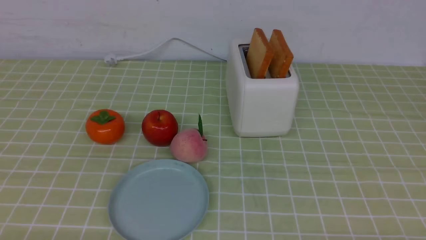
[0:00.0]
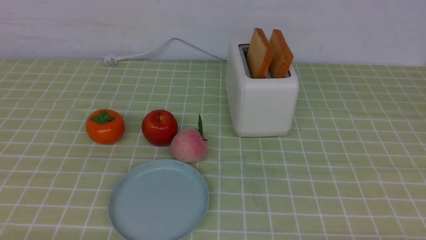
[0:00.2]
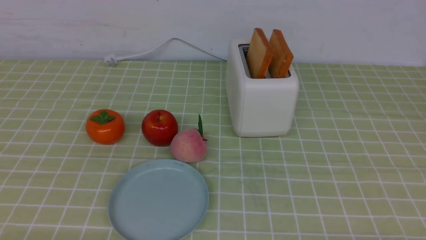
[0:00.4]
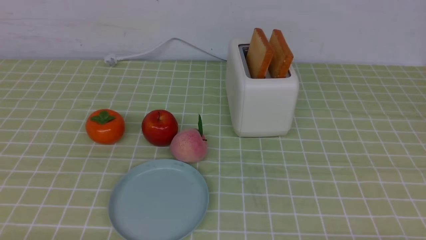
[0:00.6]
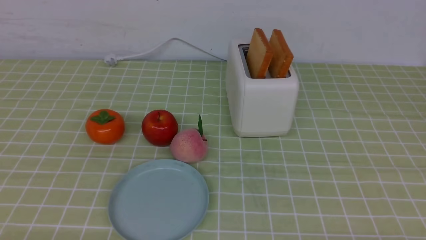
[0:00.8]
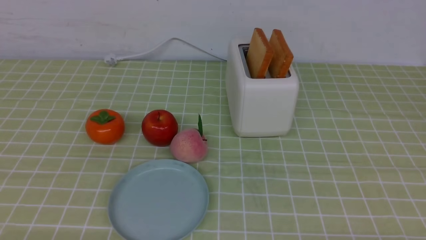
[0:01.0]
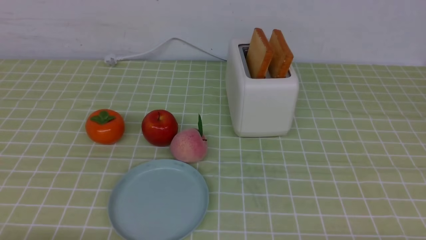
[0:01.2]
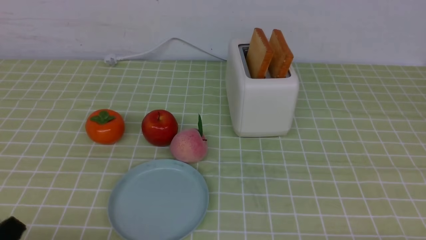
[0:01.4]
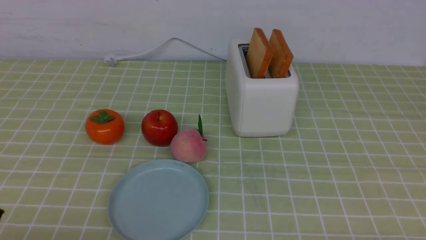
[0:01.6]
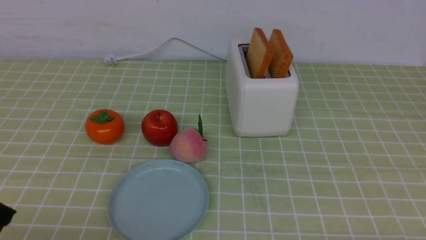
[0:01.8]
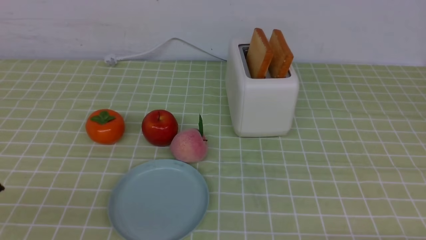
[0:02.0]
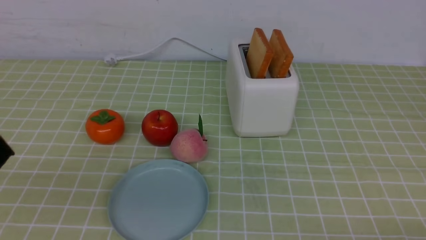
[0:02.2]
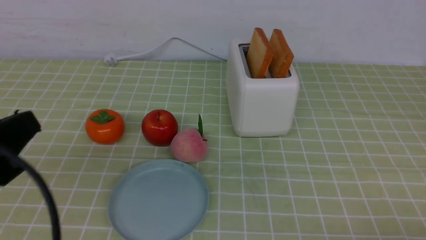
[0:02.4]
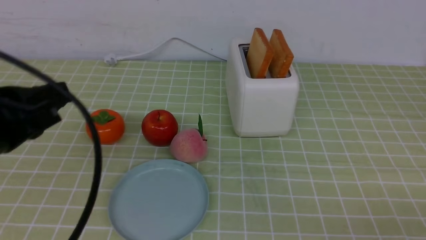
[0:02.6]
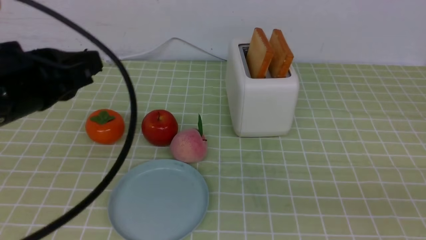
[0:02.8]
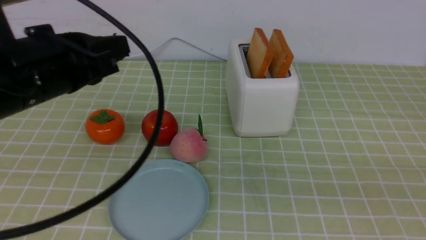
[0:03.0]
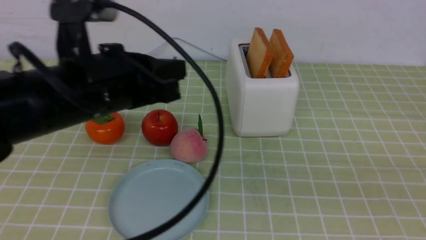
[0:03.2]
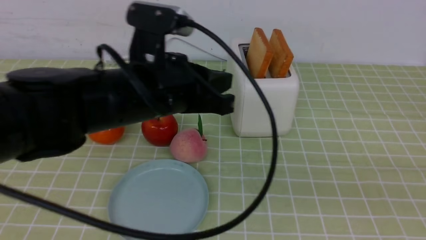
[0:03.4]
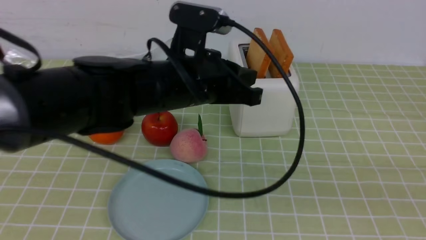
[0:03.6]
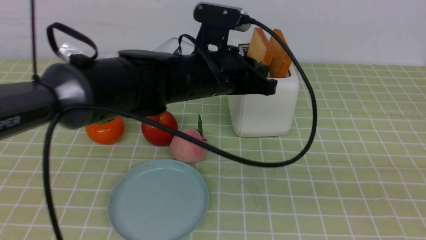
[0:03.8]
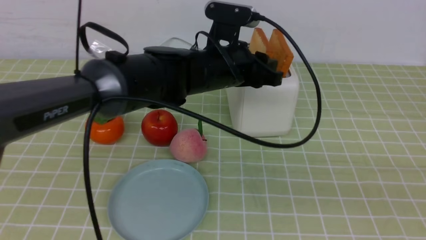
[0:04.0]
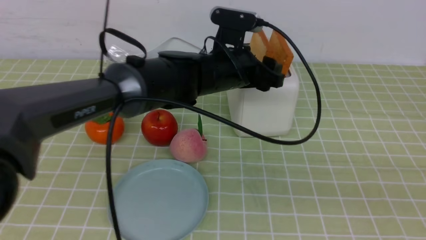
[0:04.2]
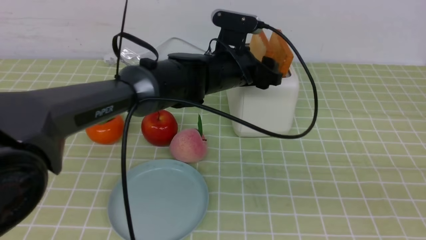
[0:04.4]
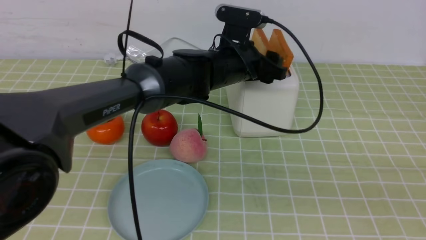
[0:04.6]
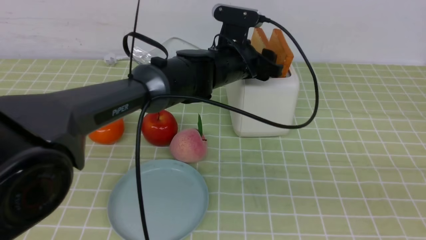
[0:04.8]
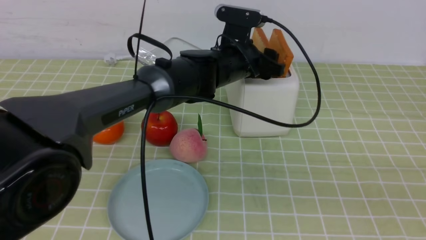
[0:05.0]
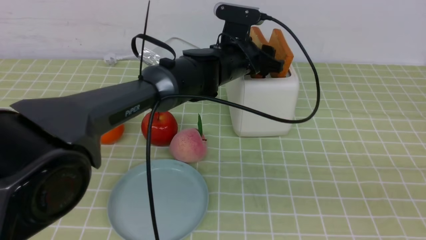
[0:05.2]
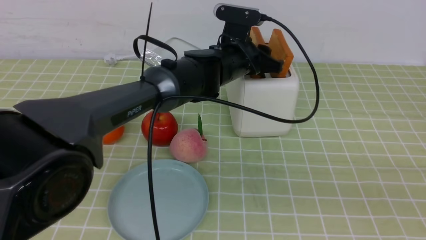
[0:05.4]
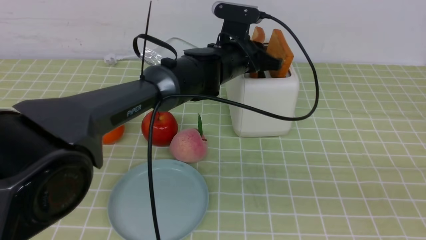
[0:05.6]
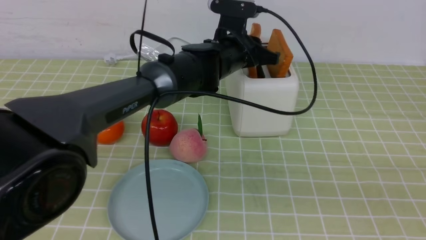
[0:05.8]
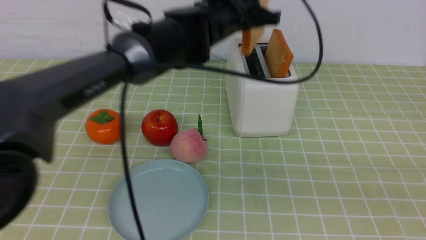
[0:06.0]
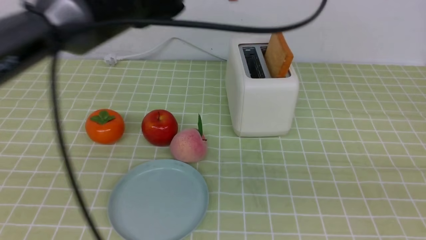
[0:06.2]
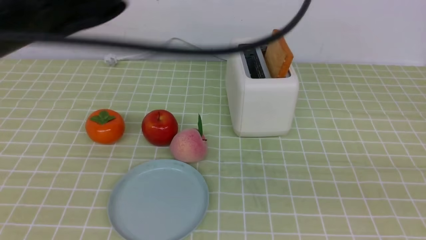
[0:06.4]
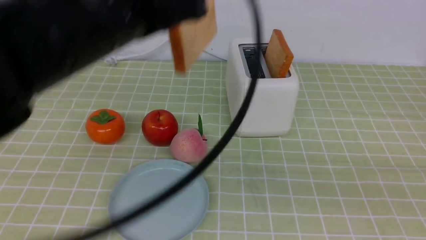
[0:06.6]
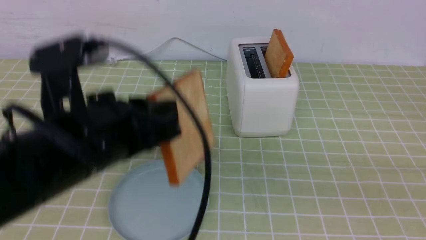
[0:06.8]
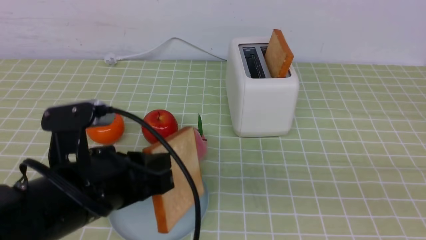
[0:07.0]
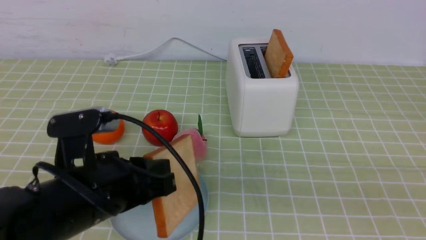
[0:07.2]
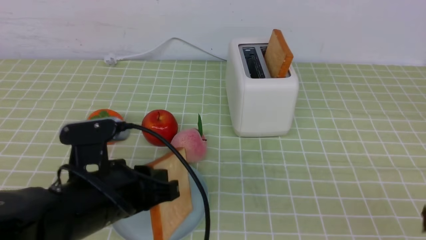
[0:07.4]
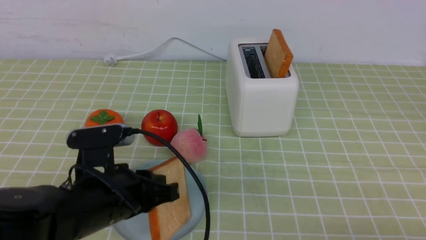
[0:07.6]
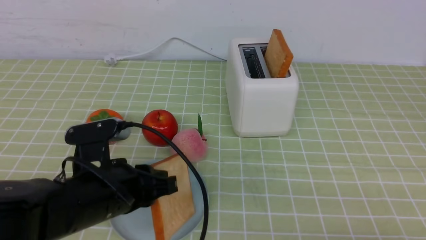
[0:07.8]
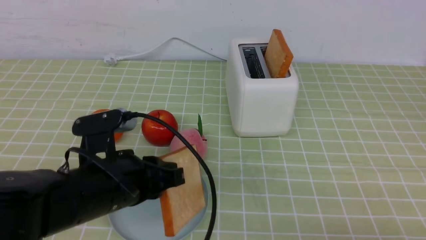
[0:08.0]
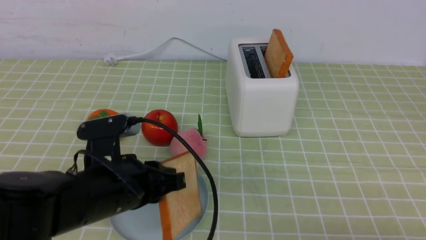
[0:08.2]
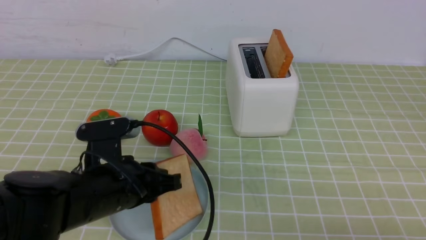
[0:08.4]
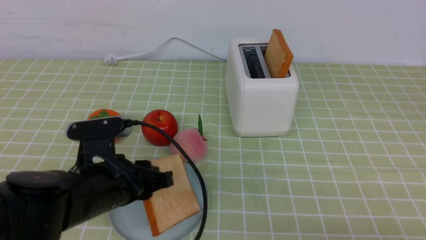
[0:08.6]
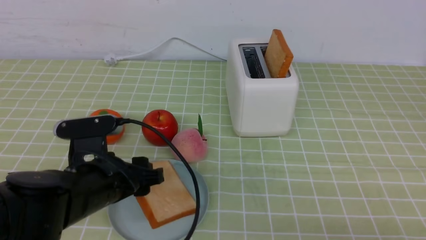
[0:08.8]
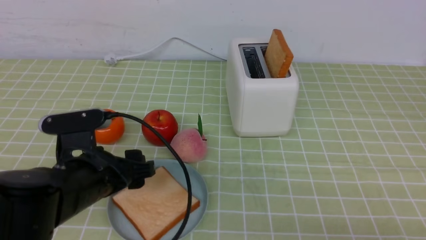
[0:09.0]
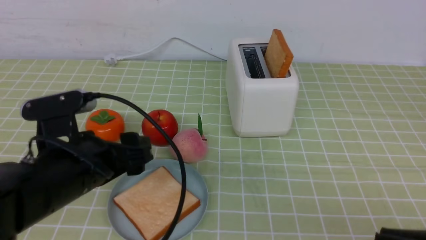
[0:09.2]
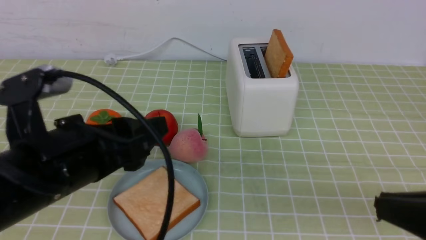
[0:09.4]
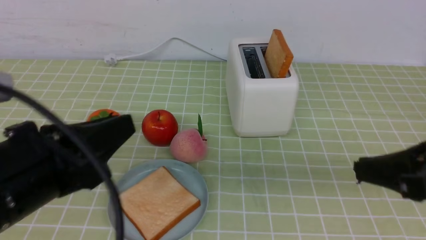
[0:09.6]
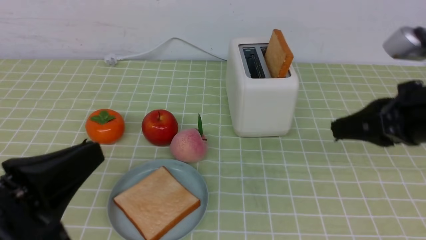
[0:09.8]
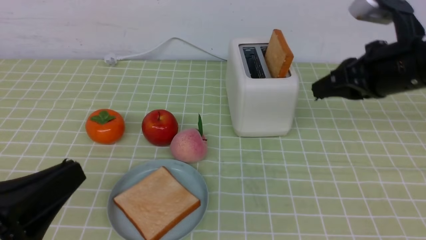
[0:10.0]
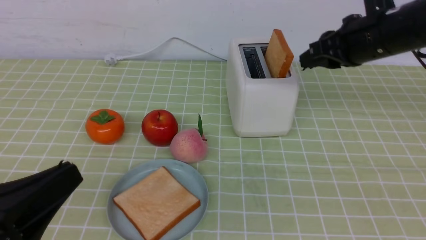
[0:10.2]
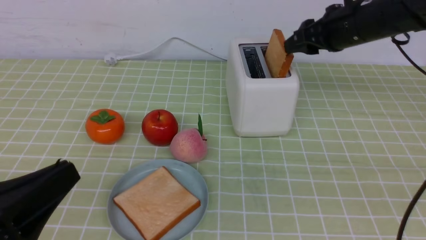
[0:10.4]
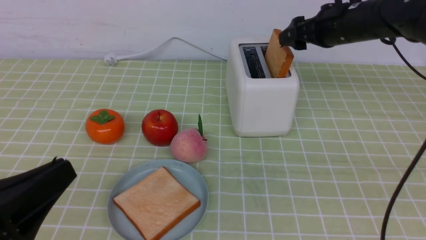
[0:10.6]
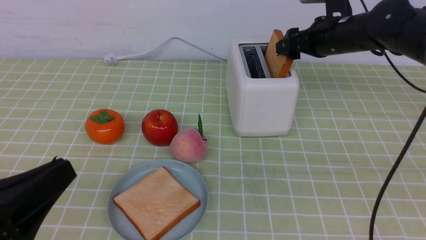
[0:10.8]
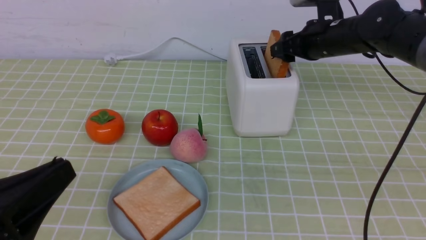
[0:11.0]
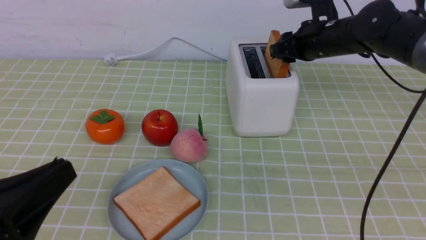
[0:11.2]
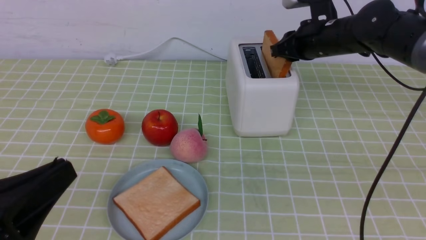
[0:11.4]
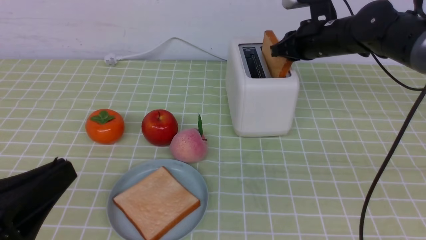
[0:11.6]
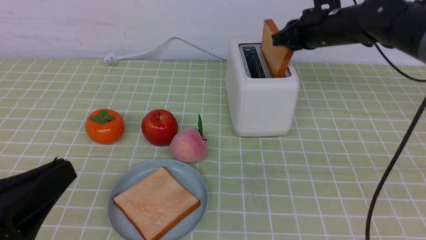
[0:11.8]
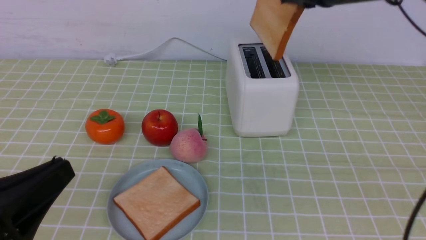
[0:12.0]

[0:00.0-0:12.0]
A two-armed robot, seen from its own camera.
Task of the whole recording: take toasted bread from bread machine on green coffee tablecloth place on plate.
Step, 0:00.0 to 0:05.8: use the left arm to take out a slice of bread.
Step, 0:06.0 to 0:09.0: use the left arm to put a slice of bread into the empty plate.
0:01.6 to 0:03.0: The left gripper heads forward, upward and to the right, covering roughly 25 cm. Meanwhile the right gripper travels upward by about 15 cm, and closes its fingers.
0:03.0 to 0:04.4: The left gripper shifts roughly 25 cm to the right, forward and downward, and opens up.
0:04.4 to 0:06.0: The left gripper is displaced upward by approximately 10 cm, and closes.
0:06.0 to 0:07.6: The left gripper moves backward, downward and to the left, some 30 cm; the right gripper ends up about 5 cm from where it was.
0:07.6 to 0:09.0: The left gripper opens up.
0:09.0 to 0:10.4: The left gripper shifts about 15 cm backward, and closes. Meanwhile the right gripper travels forward by some 35 cm, and opens up.
0:10.4 to 0:12.0: The right gripper goes about 5 cm upward, and closes.

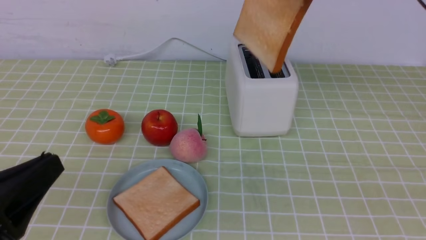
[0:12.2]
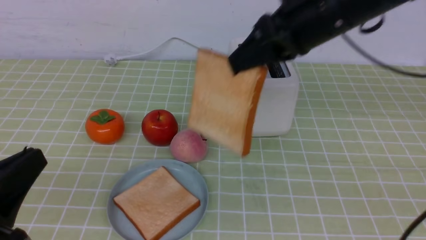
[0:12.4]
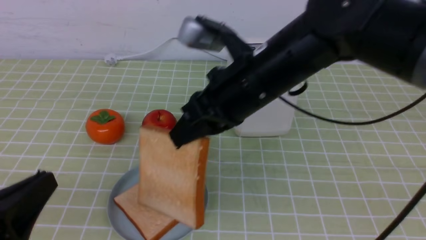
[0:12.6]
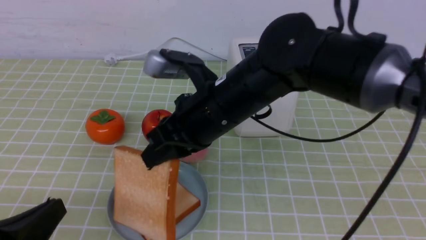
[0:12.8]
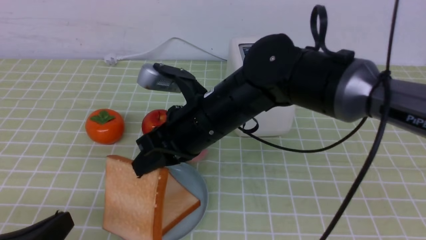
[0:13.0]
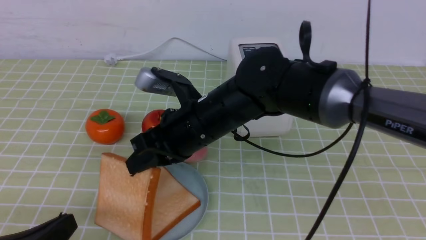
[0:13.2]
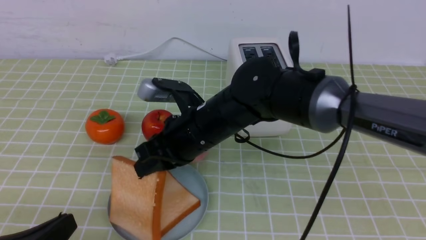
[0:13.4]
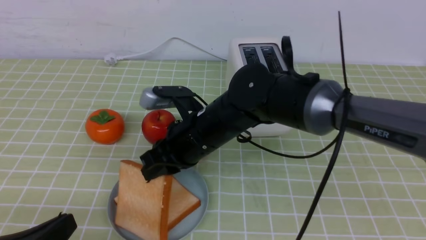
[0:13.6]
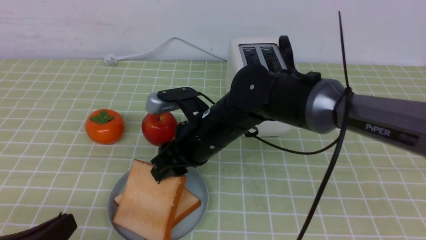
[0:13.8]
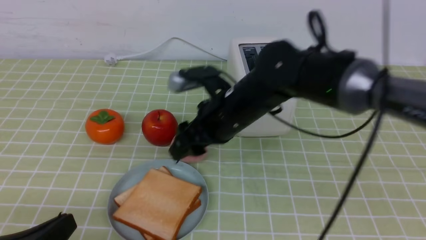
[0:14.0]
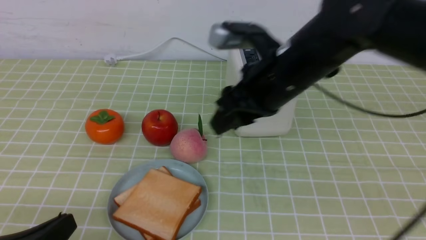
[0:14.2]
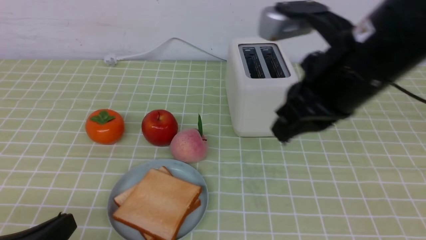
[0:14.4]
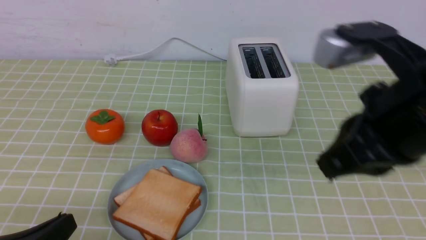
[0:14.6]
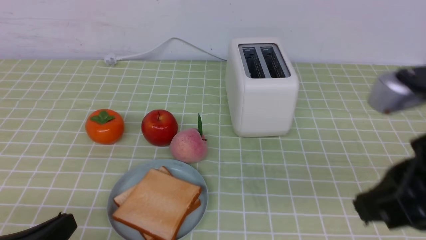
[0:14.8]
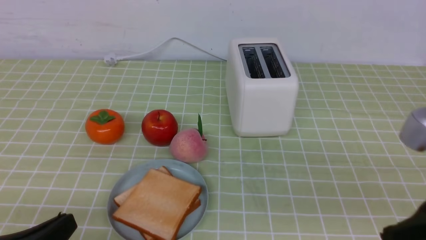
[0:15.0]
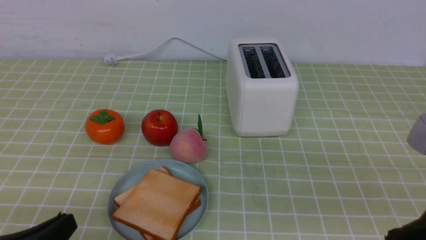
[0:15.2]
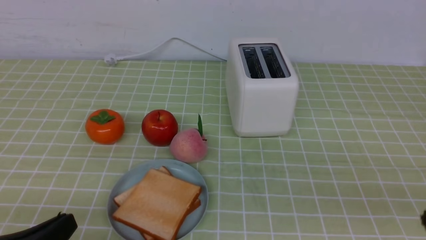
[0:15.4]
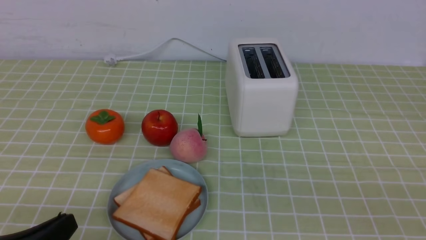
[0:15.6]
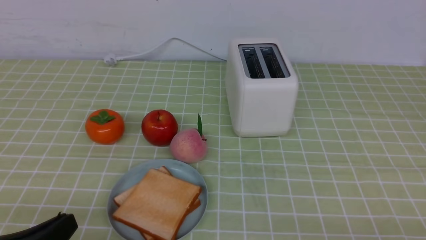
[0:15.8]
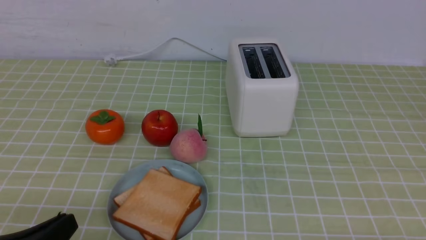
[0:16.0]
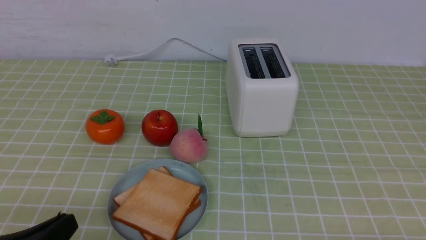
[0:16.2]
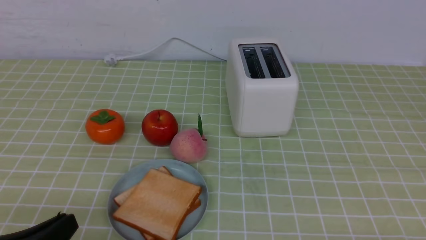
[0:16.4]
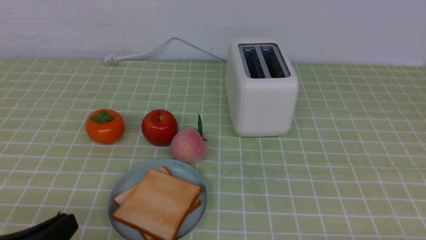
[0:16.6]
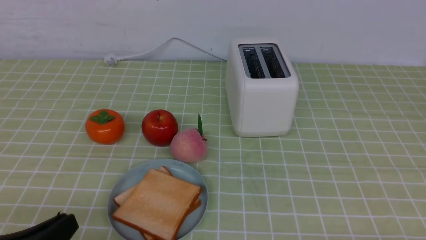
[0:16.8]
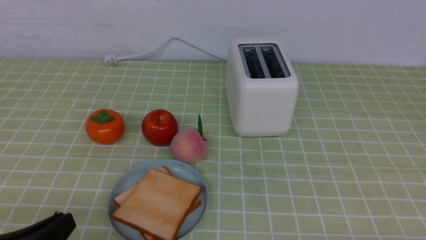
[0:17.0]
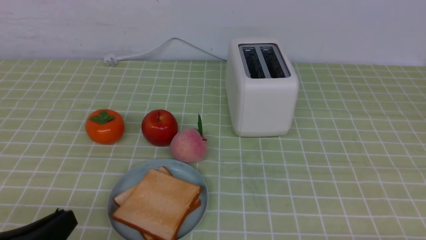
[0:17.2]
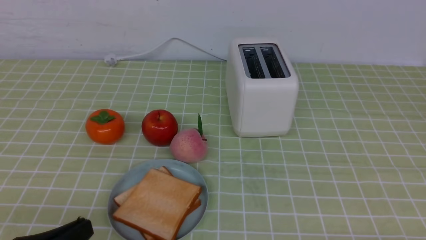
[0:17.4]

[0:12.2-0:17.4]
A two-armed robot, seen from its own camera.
Task of the whole recording: take toasted bread from bread machine on green coffee tablecloth place on plate.
Step, 0:12.2 to 0:14.2: use the right arm to put a slice of bread into the plate.
0:12.2 to 0:14.0: The right gripper is displaced downward and to the left by roughly 20 cm, and opens its fingers; the left gripper goes roughly 5 cm downward.
0:14.0 to 0:15.6: The right gripper shifts about 35 cm backward and to the right, and closes up.
